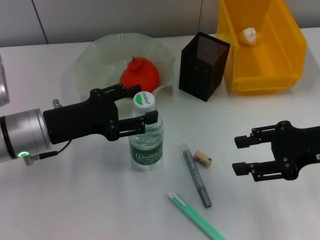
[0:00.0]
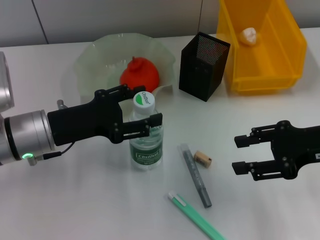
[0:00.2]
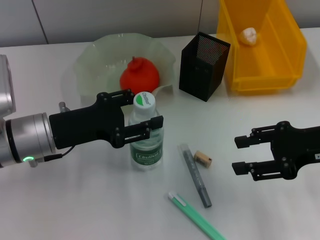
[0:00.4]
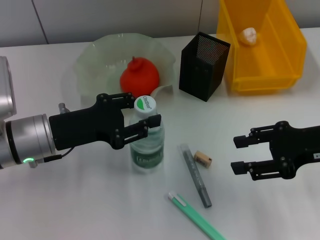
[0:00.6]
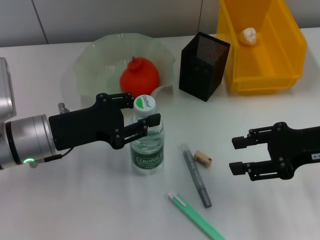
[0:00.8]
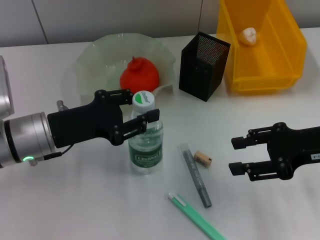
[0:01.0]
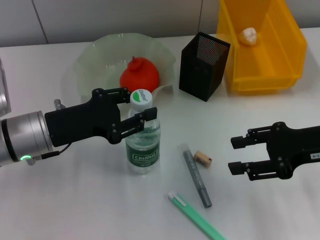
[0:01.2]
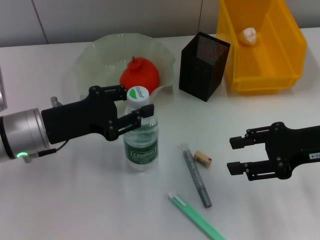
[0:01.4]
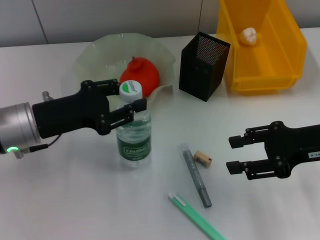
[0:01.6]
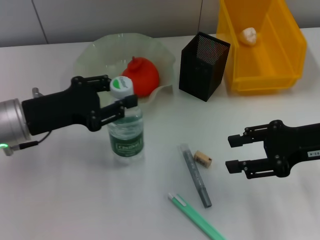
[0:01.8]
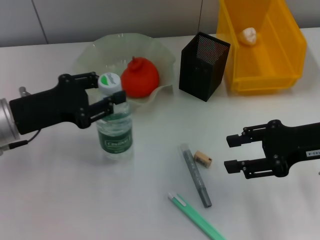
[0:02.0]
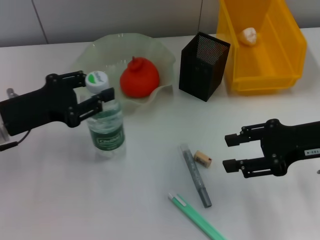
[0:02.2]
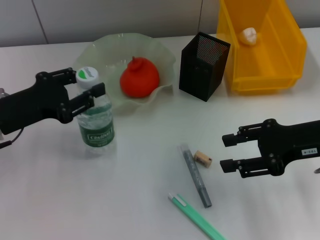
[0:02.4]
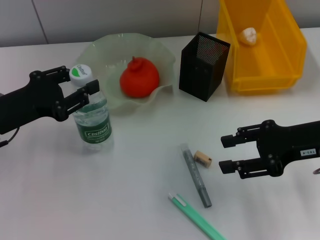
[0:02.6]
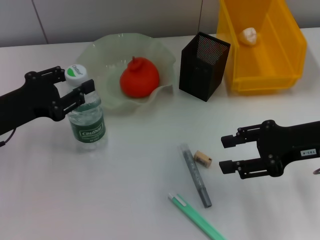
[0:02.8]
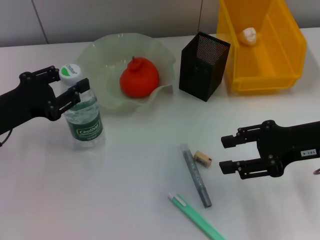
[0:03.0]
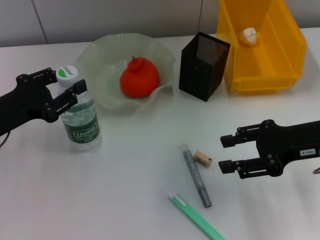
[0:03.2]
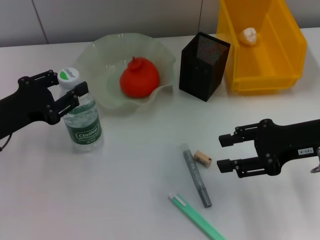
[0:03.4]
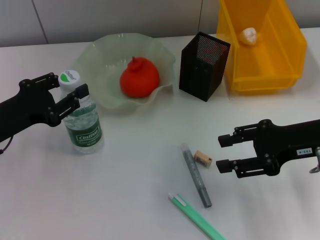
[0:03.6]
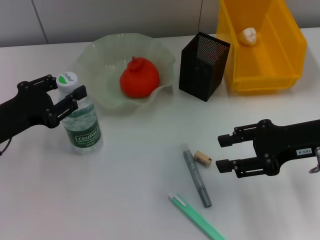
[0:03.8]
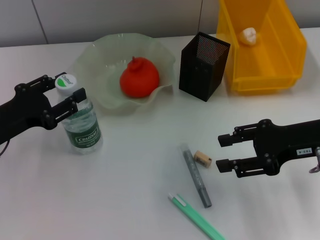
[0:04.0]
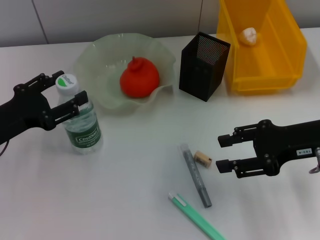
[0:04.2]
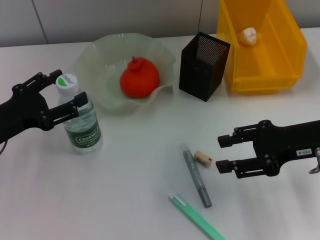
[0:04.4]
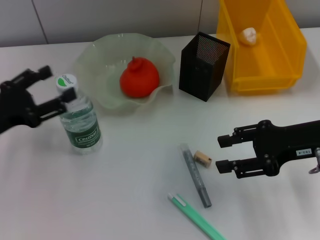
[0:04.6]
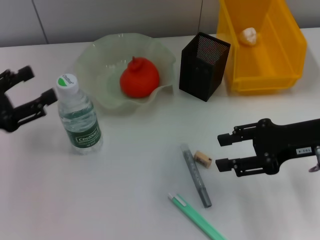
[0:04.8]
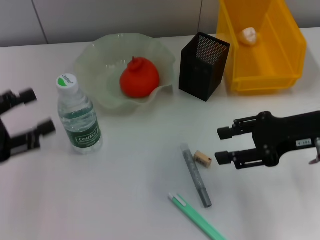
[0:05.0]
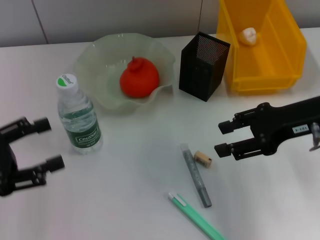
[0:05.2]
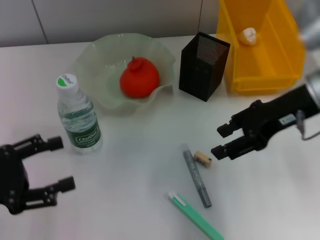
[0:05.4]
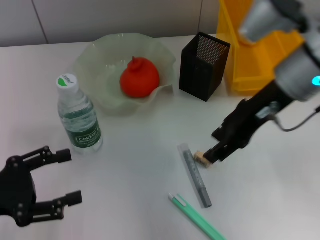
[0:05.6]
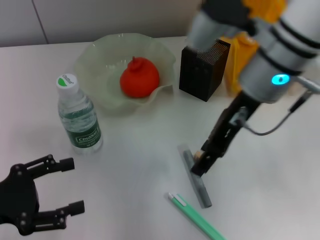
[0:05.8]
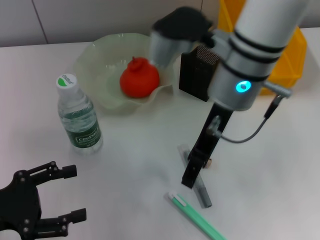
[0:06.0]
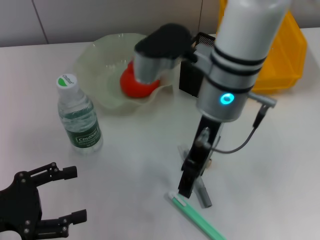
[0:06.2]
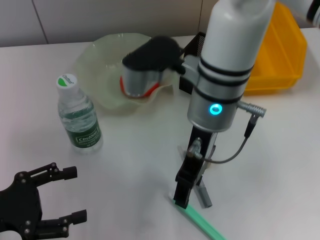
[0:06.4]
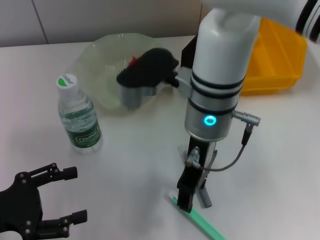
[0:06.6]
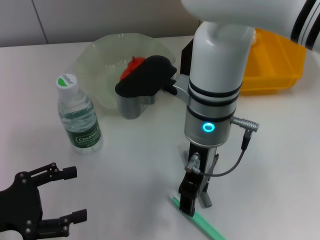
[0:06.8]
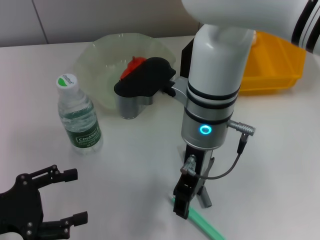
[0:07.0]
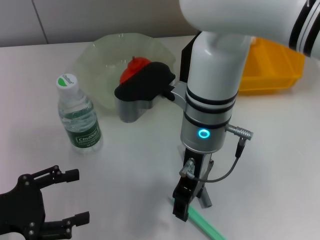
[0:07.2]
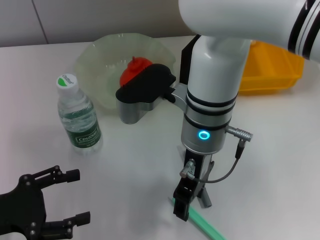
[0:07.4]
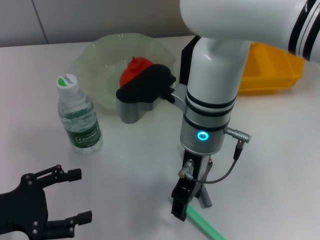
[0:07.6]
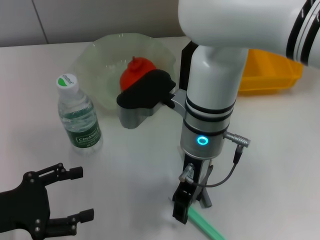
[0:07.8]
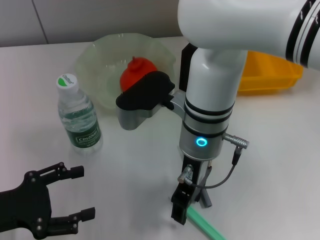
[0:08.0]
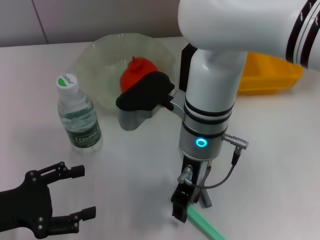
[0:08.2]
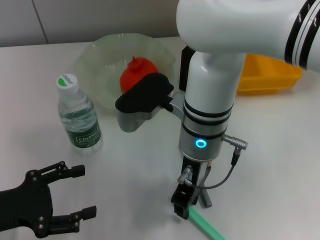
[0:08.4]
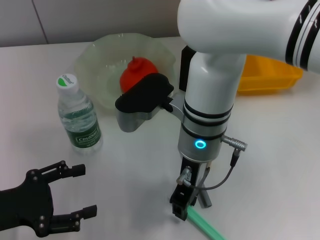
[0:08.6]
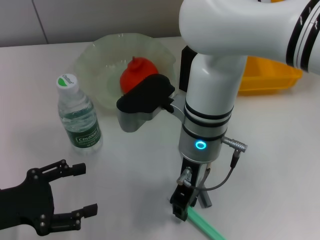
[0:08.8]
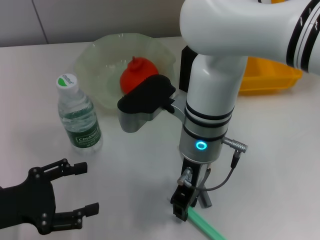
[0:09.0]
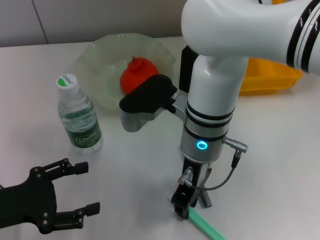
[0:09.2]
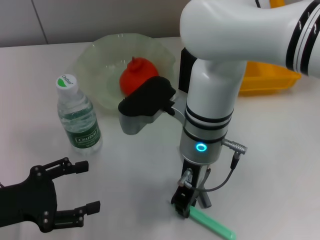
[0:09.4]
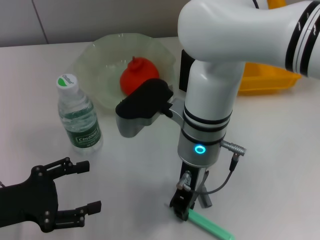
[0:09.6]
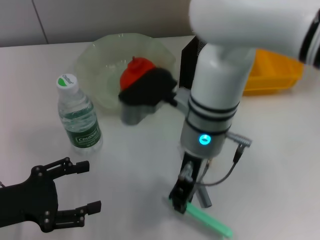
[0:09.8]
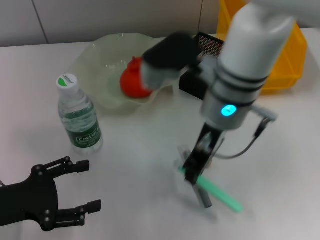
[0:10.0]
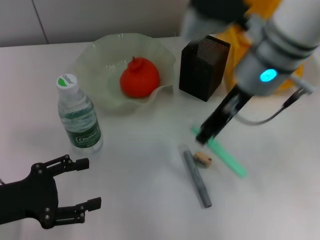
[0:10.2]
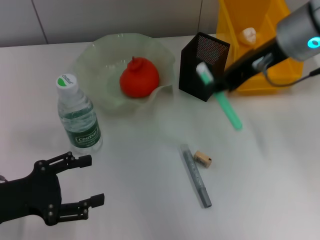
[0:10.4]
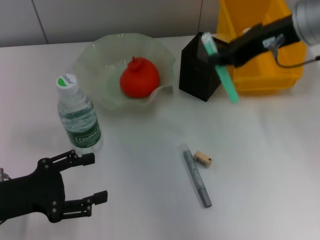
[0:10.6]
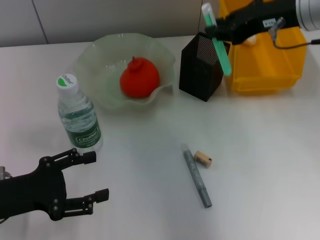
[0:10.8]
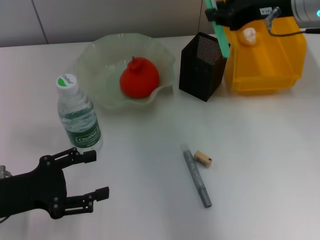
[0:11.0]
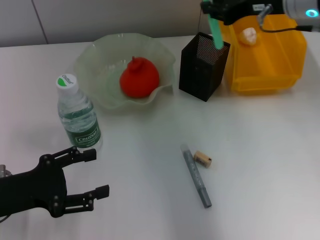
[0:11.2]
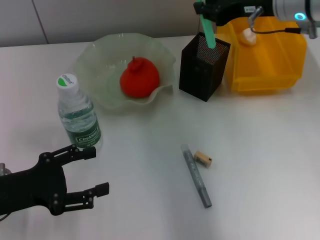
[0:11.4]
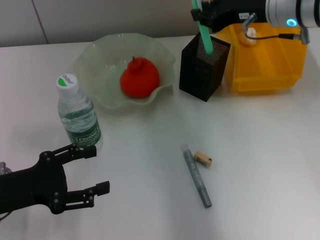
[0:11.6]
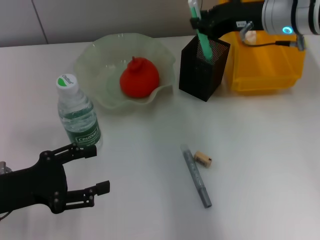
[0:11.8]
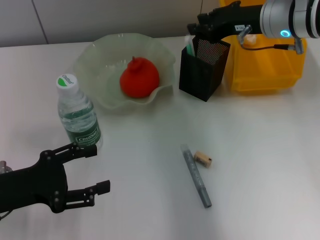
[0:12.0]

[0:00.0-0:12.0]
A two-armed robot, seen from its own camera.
Step, 0:01.2 to 0:04.4: Place the water bottle on the table with the left hand.
Step, 0:04.8 to 0:09.4: Grab the blue utility knife with the right hand.
0:00.0 to 0:01.6: The left gripper closes its fingers.
0:01.6 to 0:03.0: The left gripper moves to the left, approximately 5 cm.
0:03.0 to 0:04.4: The left gripper opens its fingers.
0:04.4 to 0:06.0: The right gripper is displaced to the left and upward by some 20 cm; the left gripper travels backward by roughly 10 cm.
0:06.0 to 0:07.6: The right gripper is displaced downward by some 5 cm.
0:07.6 to 0:09.0: The right gripper closes.
0:09.0 to 0:10.4: The right gripper travels to the right and upward by approximately 20 cm.
0:10.4 to 0:12.0: The right gripper moves forward and downward, some 10 cm.

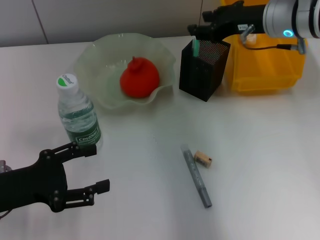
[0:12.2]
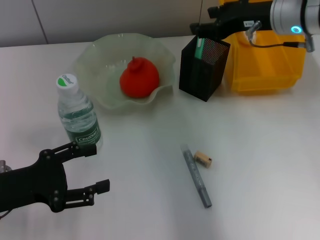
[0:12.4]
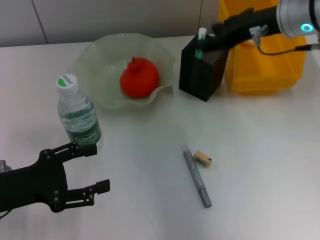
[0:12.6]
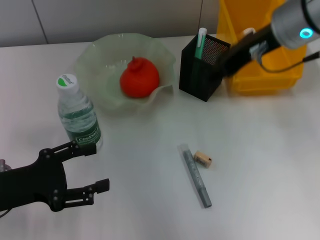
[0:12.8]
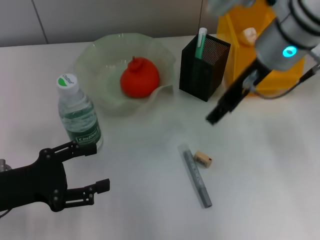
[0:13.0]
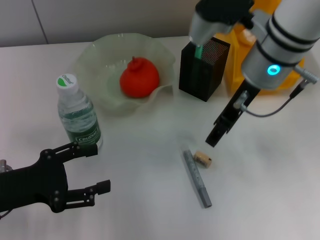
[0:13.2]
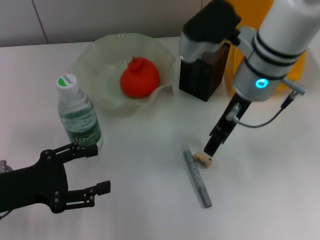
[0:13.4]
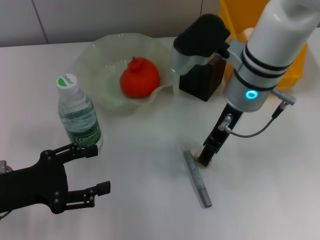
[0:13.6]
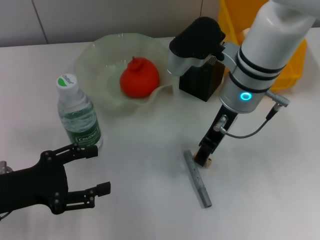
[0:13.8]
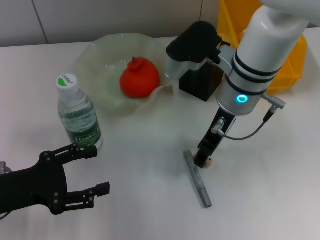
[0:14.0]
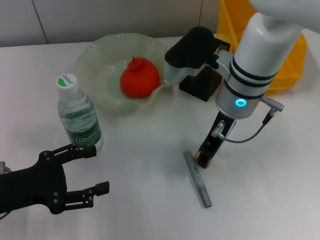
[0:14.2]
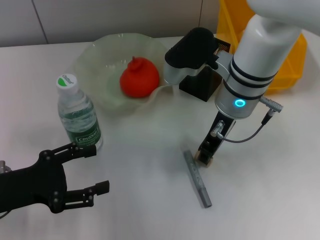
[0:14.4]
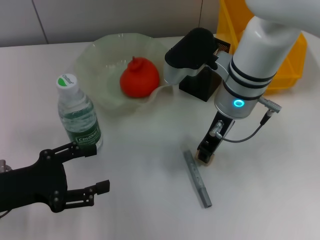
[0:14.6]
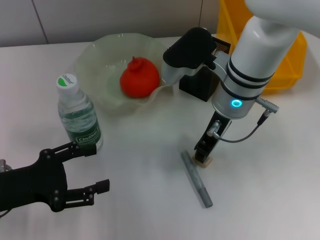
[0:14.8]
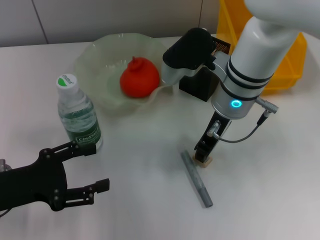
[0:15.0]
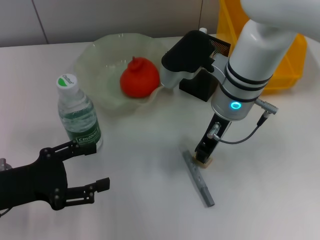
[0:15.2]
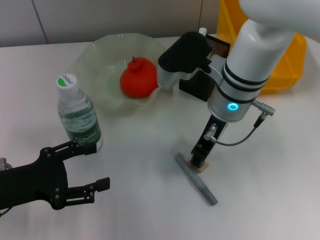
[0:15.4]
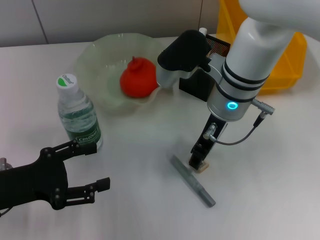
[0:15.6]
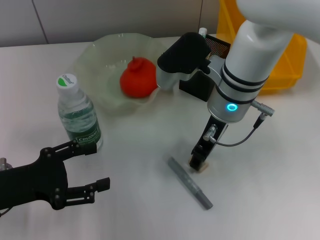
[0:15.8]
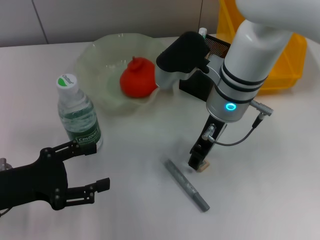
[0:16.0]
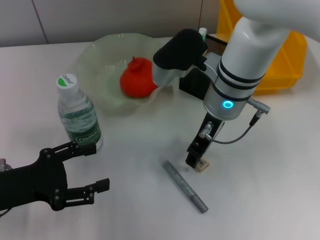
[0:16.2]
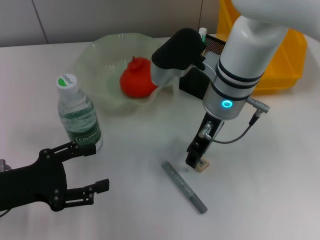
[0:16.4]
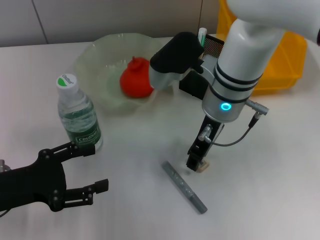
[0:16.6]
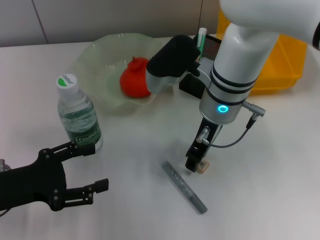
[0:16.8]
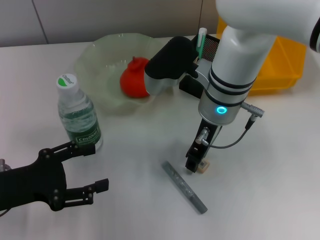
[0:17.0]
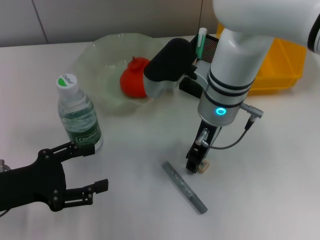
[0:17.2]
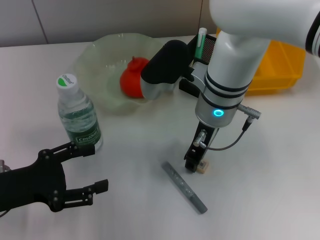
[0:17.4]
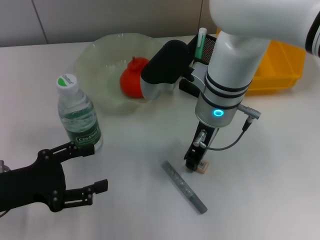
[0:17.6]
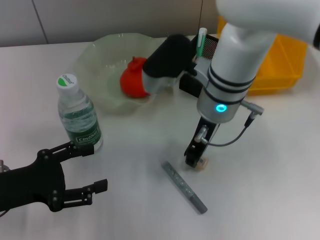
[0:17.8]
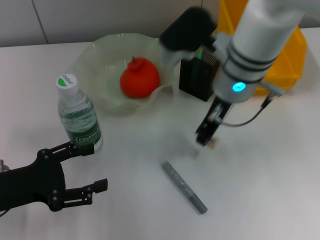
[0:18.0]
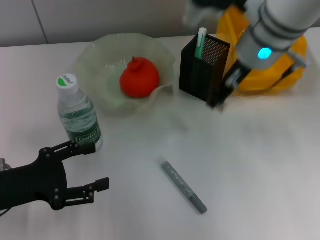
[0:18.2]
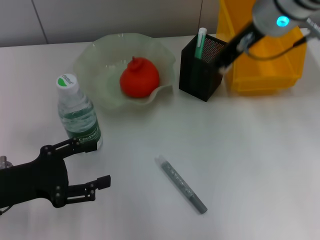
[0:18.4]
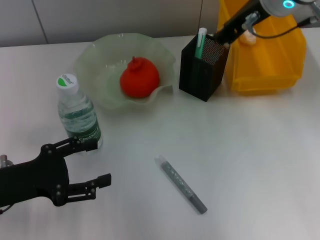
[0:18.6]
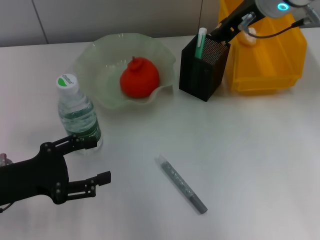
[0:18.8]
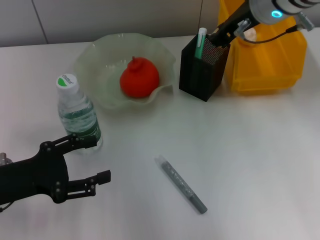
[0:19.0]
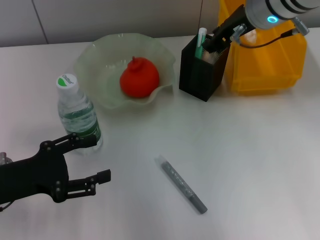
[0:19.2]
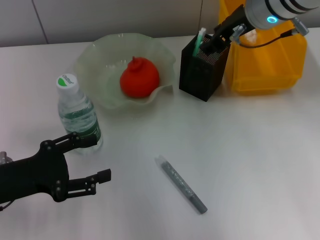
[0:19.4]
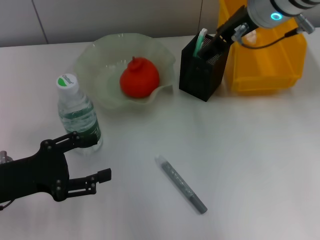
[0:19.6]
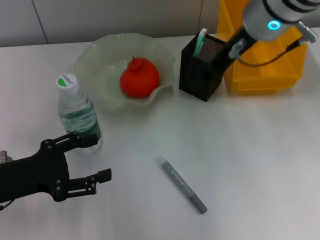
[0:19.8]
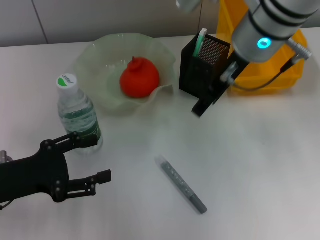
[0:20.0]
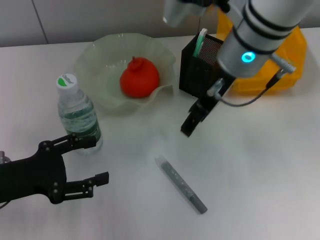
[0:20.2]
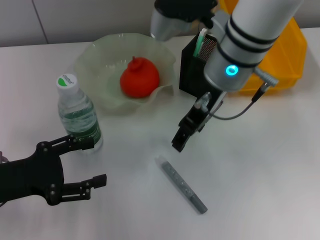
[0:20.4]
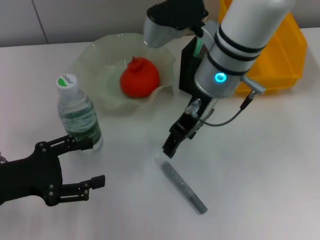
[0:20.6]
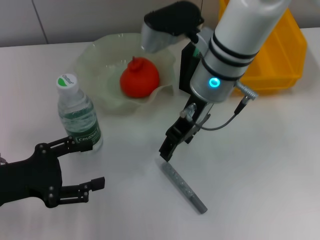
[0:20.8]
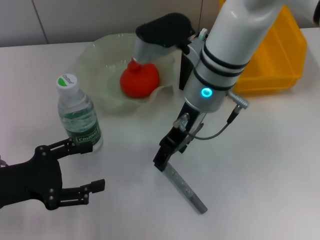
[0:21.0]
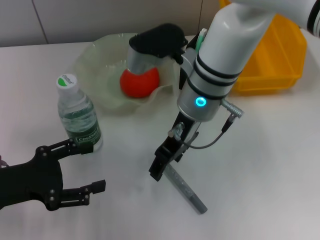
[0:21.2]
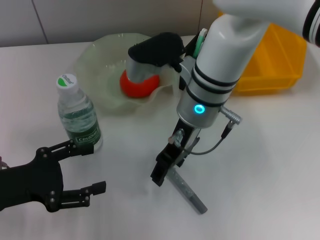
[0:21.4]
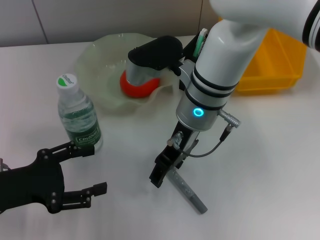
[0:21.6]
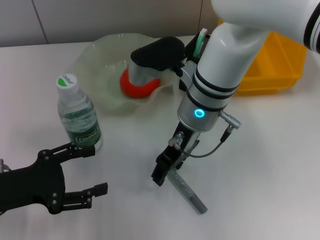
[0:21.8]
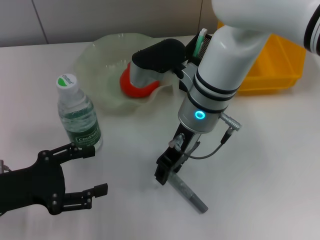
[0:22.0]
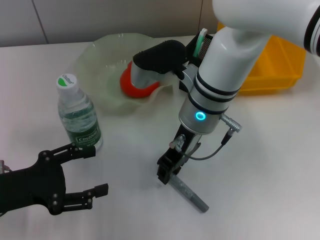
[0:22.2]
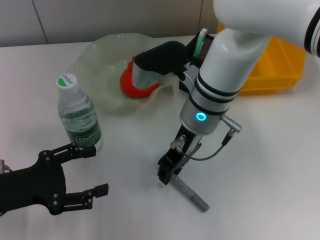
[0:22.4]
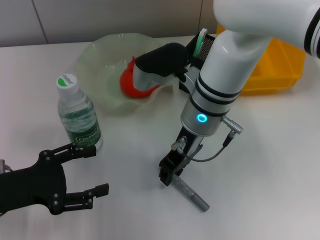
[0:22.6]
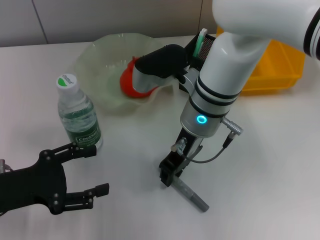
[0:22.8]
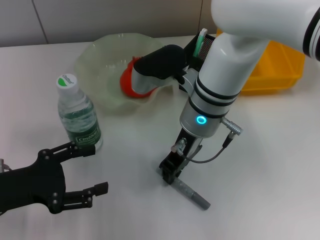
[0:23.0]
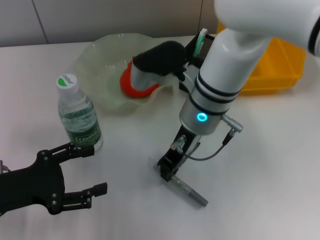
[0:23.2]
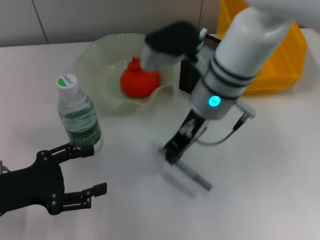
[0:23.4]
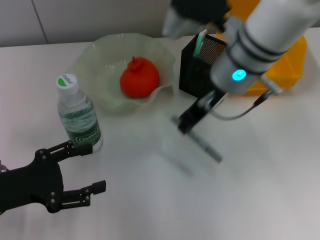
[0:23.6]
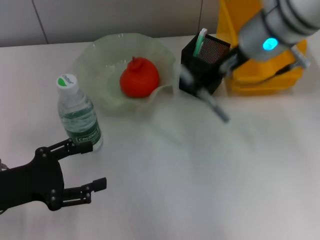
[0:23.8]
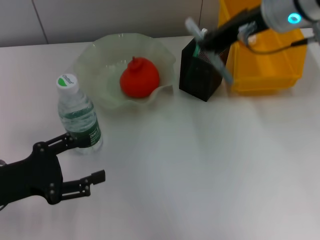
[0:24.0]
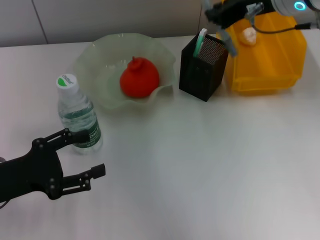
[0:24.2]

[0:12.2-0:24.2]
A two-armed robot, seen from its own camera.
Step, 0:12.8 to 0:17.2: Grab the eraser with the right hand.
Step, 0:17.4 to 0:19.4: Put the eraser into the pen holder with the right hand.
Step, 0:19.8 to 0:23.0: Grab the gray glue with the right hand.
0:12.2 to 0:13.8: The right gripper goes about 10 cm to the left and backward.
0:13.8 to 0:15.2: The right gripper closes its fingers.
0:15.2 to 0:16.6: The grippers move only a little.
0:16.6 to 0:18.2: The right gripper goes approximately 5 cm upward.
0:18.2 to 0:19.8: The right gripper opens.
0:19.8 to 0:21.2: The right gripper travels downward and to the left by approximately 10 cm.
0:21.2 to 0:22.6: The right gripper closes its fingers.
0:22.6 to 0:24.2: The right gripper shifts about 15 cm to the right and upward.
